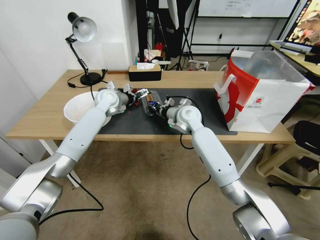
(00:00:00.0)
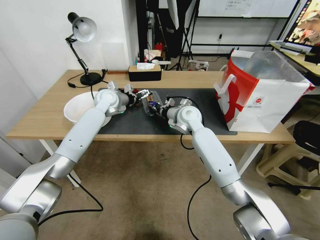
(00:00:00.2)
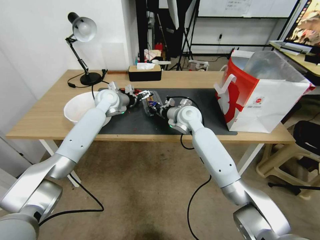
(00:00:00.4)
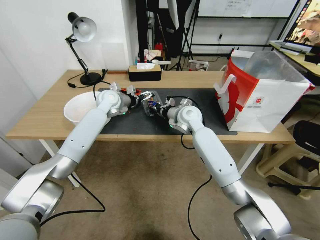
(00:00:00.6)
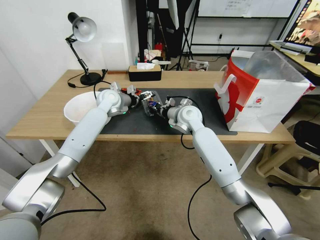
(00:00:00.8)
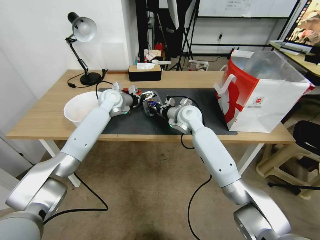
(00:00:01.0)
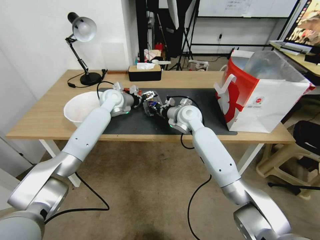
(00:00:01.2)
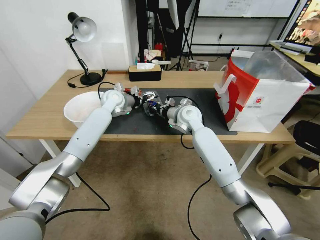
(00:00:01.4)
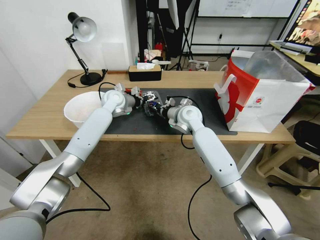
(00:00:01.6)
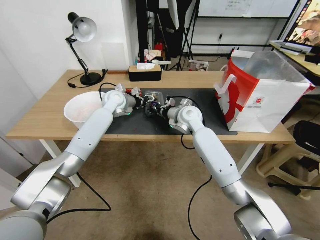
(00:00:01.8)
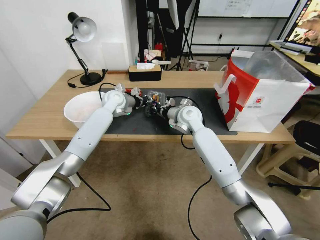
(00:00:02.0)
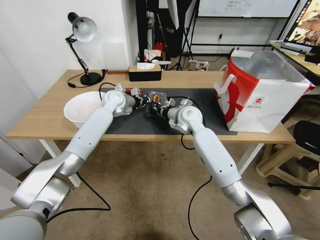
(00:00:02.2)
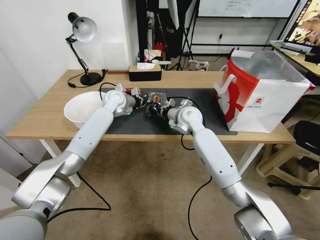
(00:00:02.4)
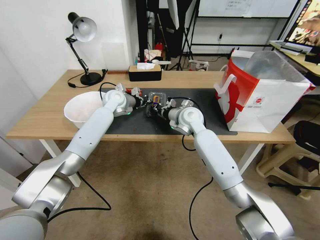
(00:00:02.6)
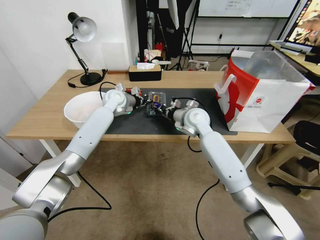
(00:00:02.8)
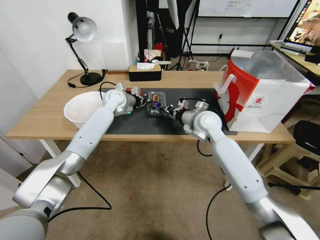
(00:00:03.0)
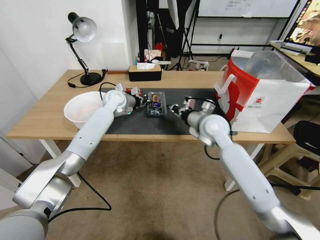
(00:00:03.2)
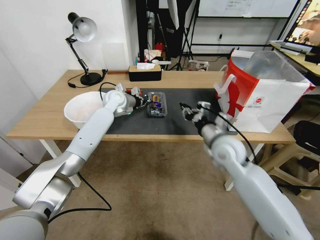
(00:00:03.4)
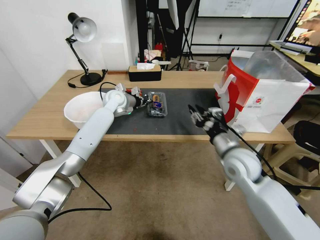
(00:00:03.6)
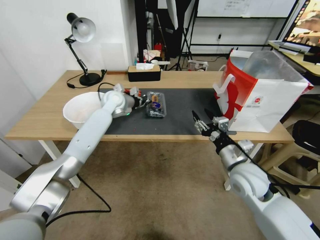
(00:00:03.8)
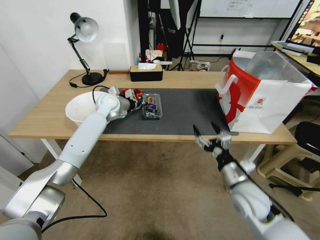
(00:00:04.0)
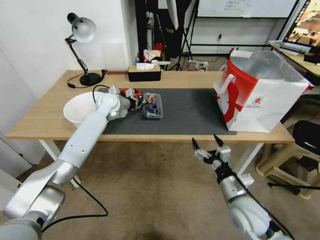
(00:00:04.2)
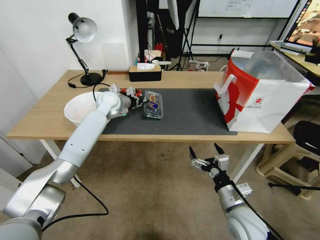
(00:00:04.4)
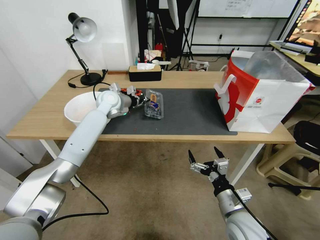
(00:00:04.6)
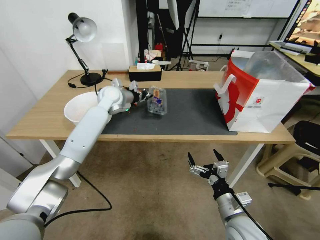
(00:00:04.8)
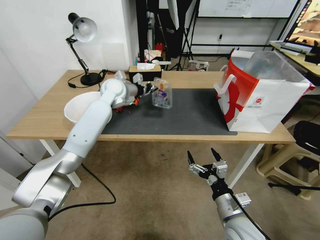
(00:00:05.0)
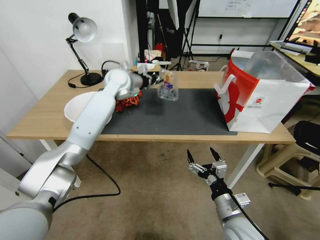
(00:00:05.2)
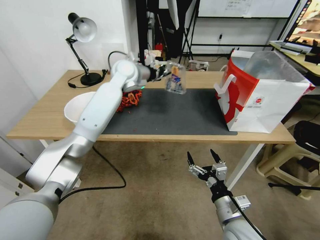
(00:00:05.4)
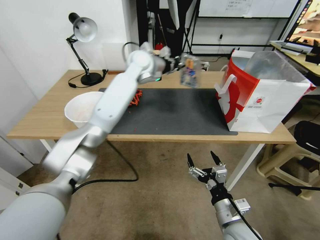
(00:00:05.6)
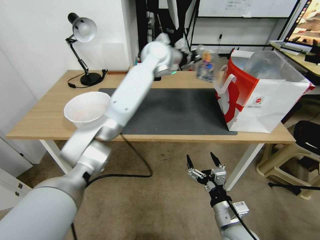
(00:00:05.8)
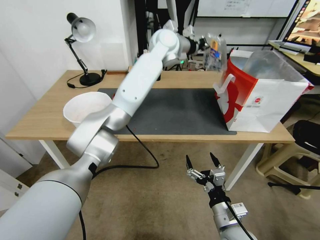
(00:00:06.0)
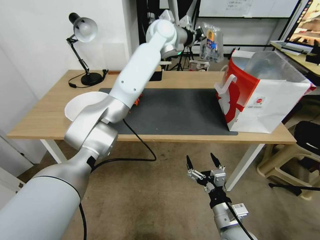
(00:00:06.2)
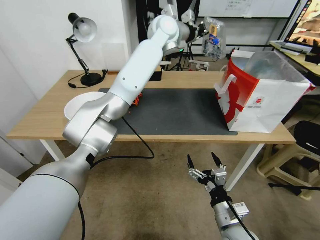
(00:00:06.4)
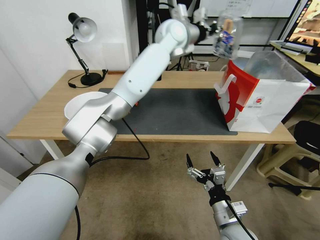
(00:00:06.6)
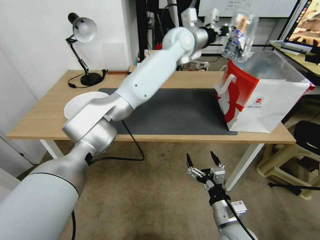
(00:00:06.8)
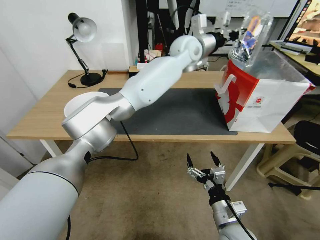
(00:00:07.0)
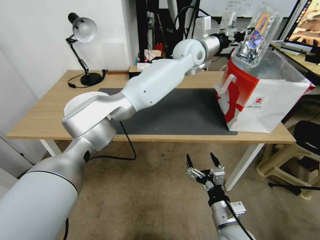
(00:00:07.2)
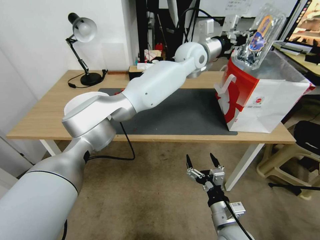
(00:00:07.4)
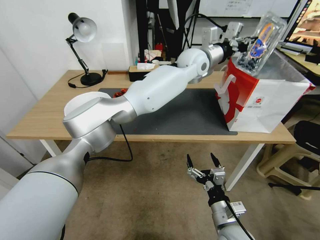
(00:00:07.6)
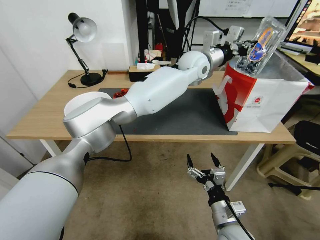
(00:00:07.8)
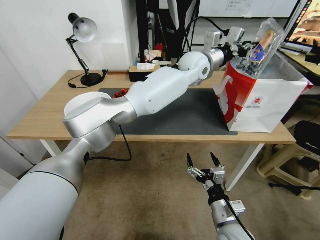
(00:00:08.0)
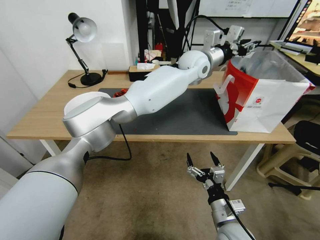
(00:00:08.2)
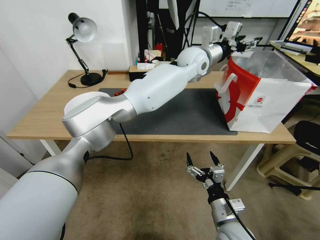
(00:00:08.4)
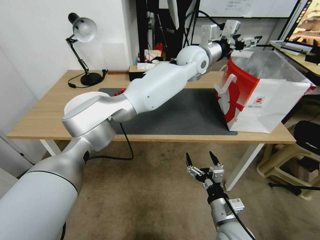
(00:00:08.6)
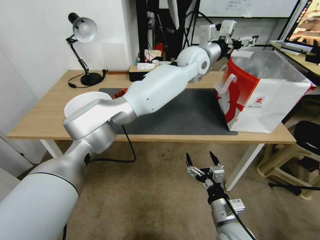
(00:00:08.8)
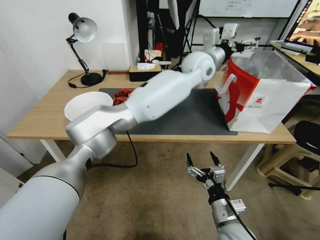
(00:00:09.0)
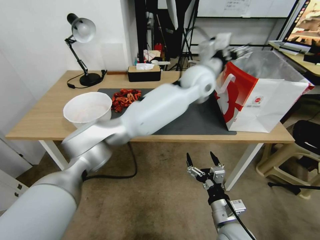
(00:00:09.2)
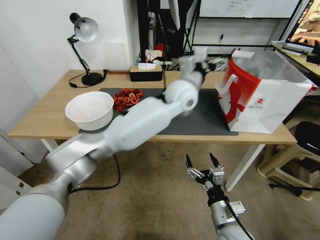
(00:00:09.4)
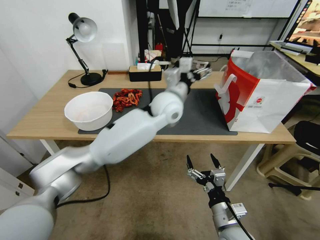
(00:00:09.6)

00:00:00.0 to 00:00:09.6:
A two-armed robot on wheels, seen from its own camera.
Task of the whole recording: Close the takeout container lid, then place the container into the takeout bag.
00:00:00.0 to 00:00:01.6: The grippers stay close to where they were, moving slightly.
00:00:01.6 to 00:00:03.2: The right gripper is displaced to the right and backward by about 10 cm; the left gripper closes its fingers.
00:00:03.2 to 00:00:04.8: The right gripper goes about 30 cm backward and downward, and opens.
00:00:04.8 to 00:00:06.4: The left gripper is displaced upward and to the right by some 30 cm.
00:00:06.4 to 00:00:08.0: The left gripper travels to the right and downward by approximately 15 cm.
00:00:08.0 to 00:00:09.6: The left gripper shifts some 15 cm backward, to the left and downward, and opens up.

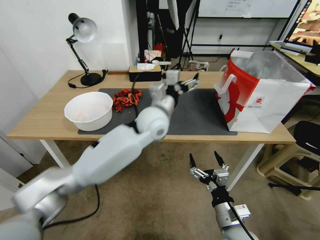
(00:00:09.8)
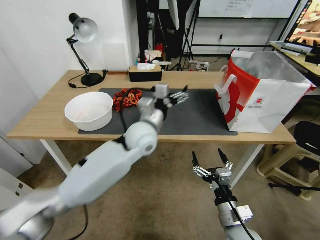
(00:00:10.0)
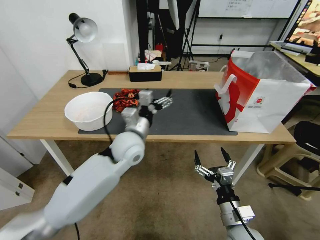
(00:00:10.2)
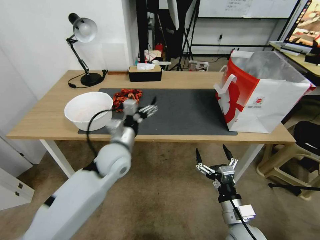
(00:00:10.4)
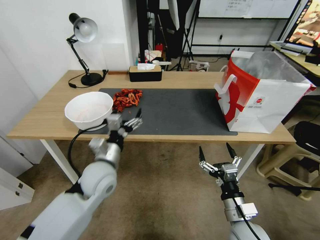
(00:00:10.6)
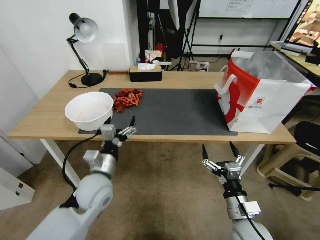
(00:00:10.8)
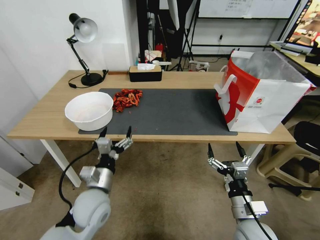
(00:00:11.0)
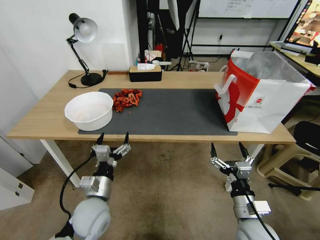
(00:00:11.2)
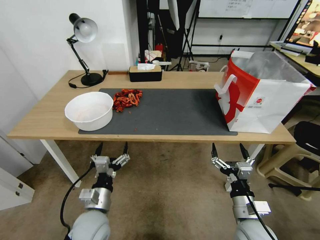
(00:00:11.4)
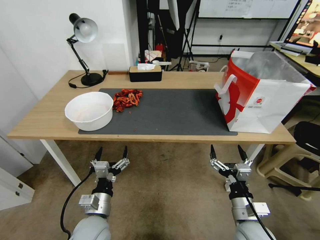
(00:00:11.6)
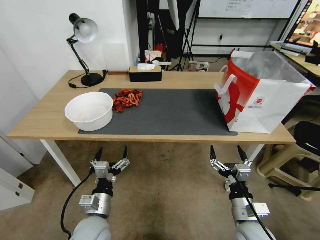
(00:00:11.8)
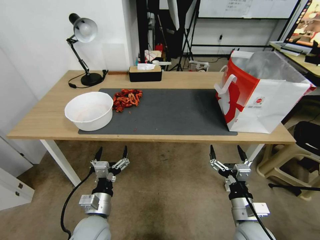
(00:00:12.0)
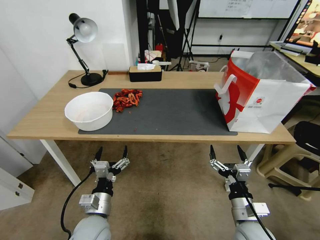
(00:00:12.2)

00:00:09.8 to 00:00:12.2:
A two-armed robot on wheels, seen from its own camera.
Task of the whole recording: Close the takeout container lid, then place the container into the takeout bag.
00:00:09.8 to 00:00:11.0: The left gripper shifts approximately 30 cm backward, to the left and downward.
00:00:11.0 to 00:00:12.2: The left gripper is displaced downward and backward by about 10 cm.
